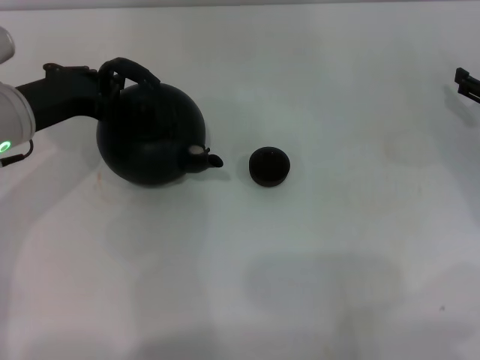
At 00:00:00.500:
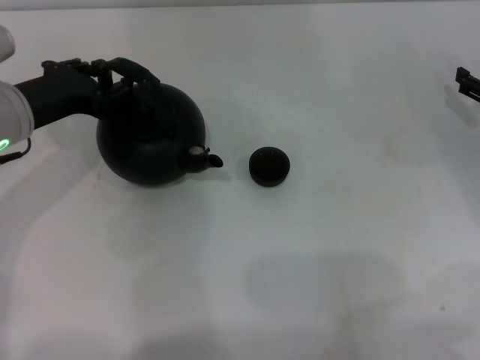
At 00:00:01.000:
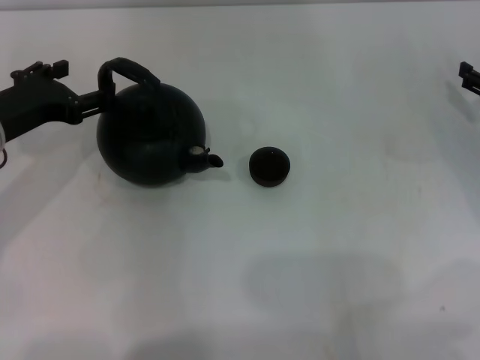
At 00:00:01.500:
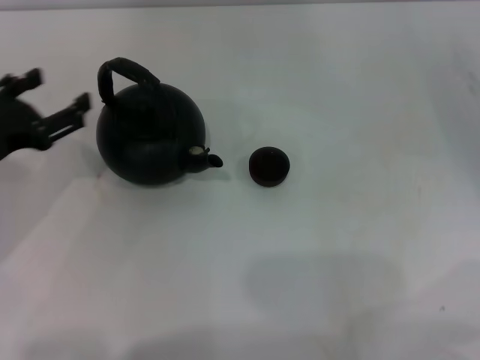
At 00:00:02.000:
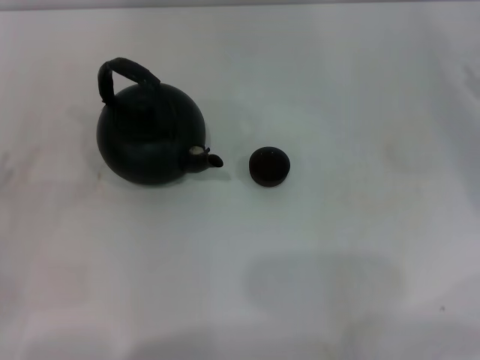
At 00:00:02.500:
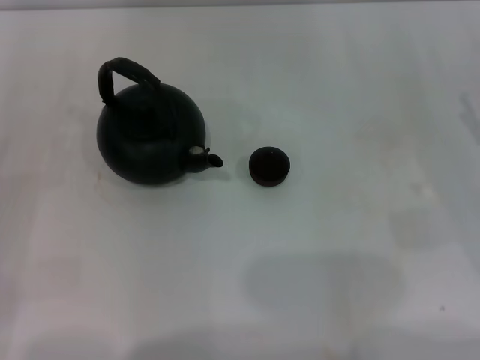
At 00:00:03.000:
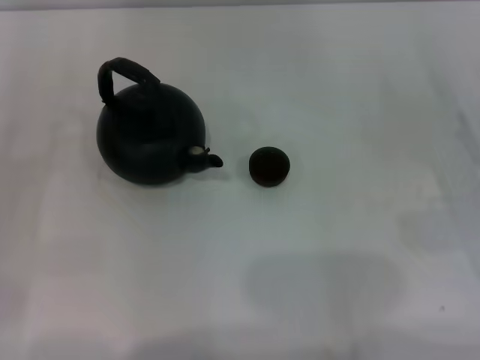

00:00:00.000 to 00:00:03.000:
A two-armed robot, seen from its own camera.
Task of the whole recording: Grasp the handle of the teapot with one hand and pour tea into the teacup.
00:00:00.000 to 00:00:01.500: The left gripper goes approximately 10 cm backward and to the left, and opens its fingers.
00:00:01.500 to 00:00:03.000: The left gripper is displaced to the left and downward by about 10 cm. Meanwhile the right gripper moves backward and to the left, about 10 cm.

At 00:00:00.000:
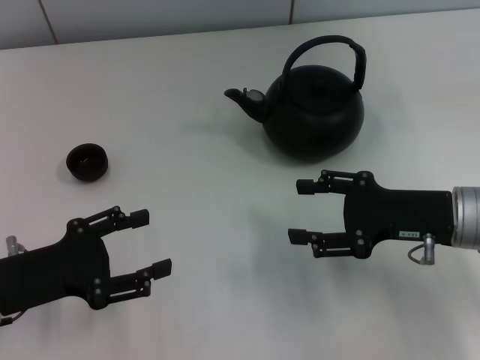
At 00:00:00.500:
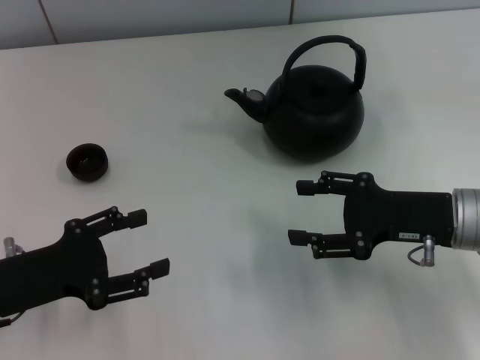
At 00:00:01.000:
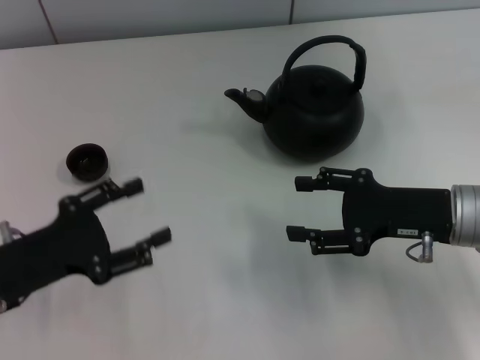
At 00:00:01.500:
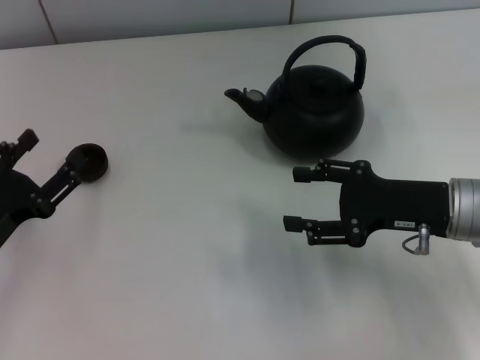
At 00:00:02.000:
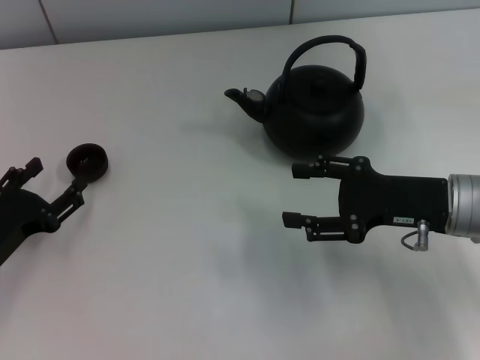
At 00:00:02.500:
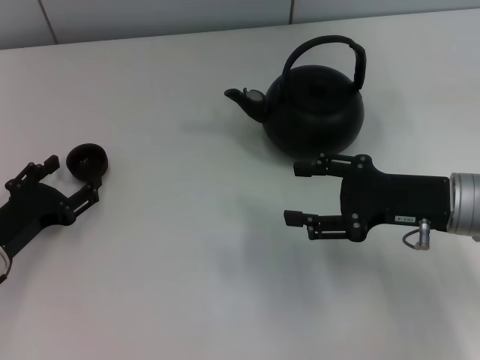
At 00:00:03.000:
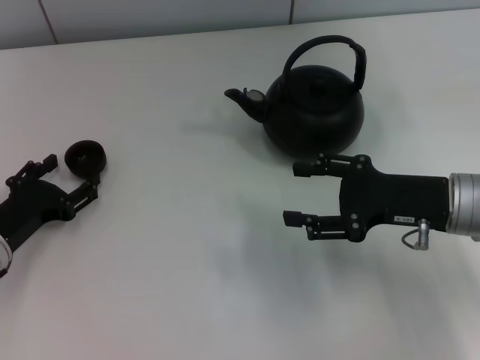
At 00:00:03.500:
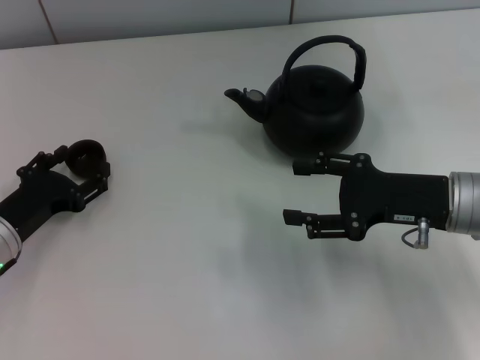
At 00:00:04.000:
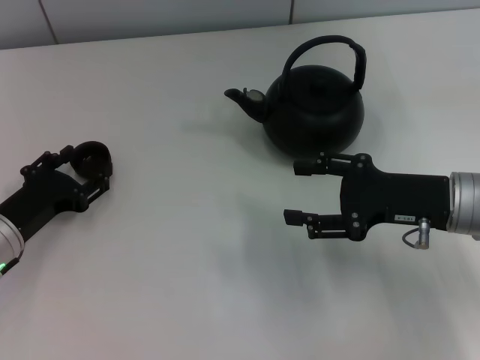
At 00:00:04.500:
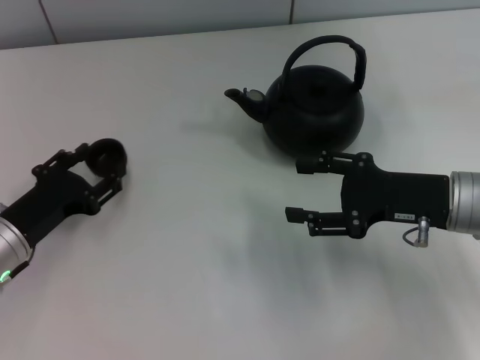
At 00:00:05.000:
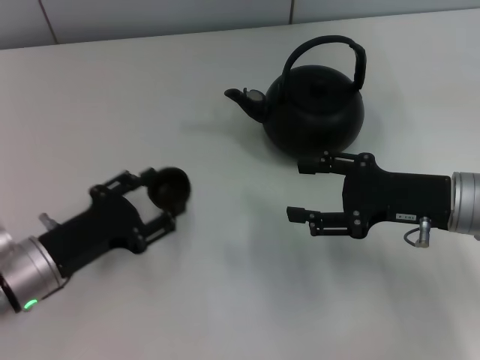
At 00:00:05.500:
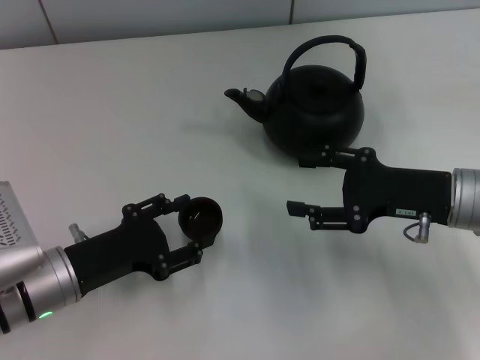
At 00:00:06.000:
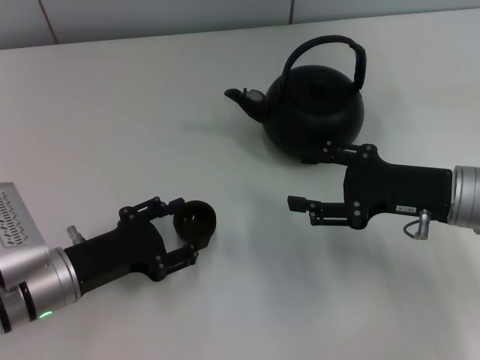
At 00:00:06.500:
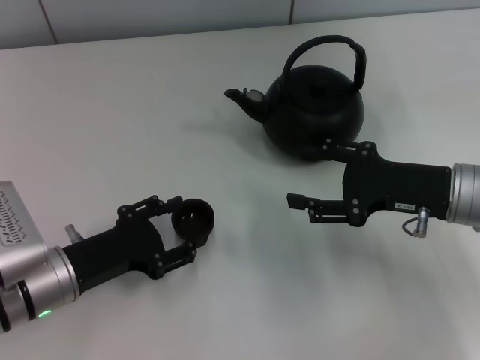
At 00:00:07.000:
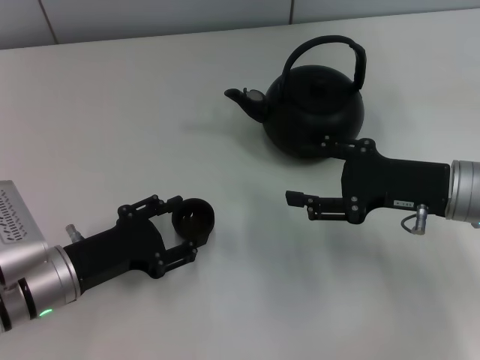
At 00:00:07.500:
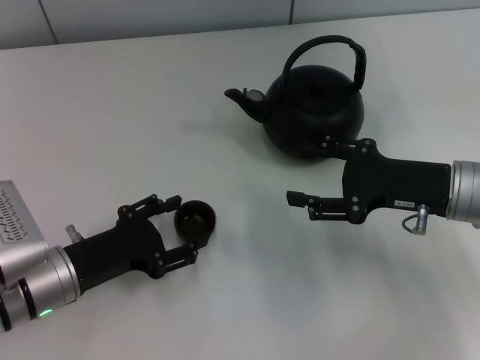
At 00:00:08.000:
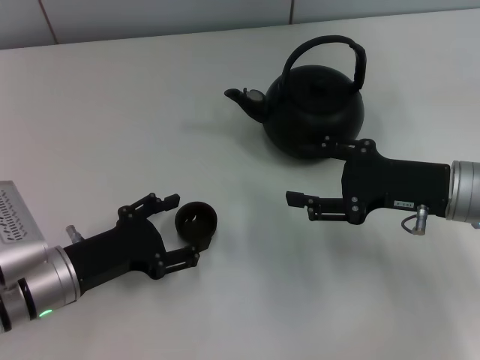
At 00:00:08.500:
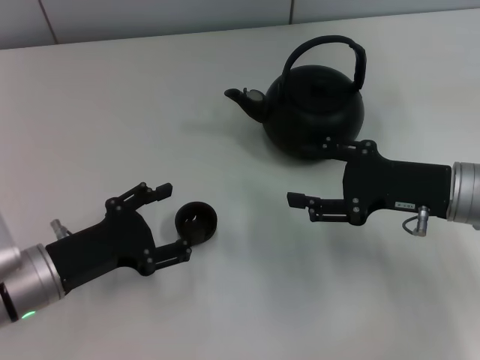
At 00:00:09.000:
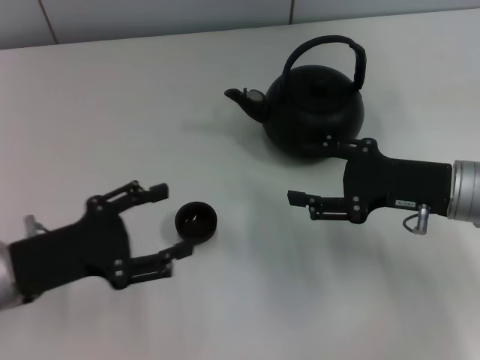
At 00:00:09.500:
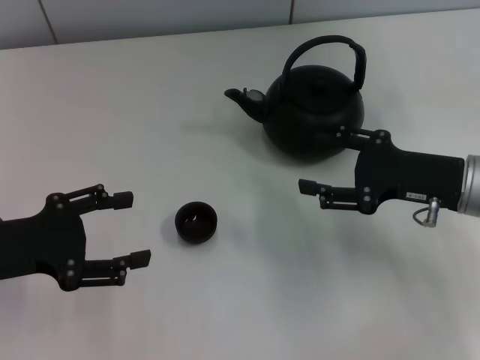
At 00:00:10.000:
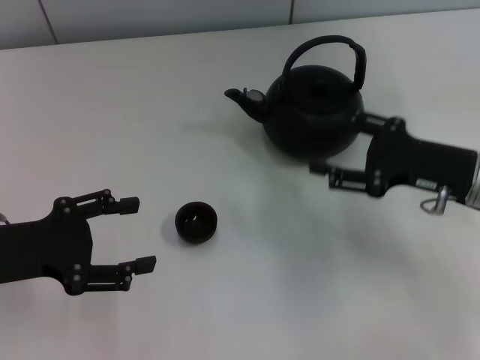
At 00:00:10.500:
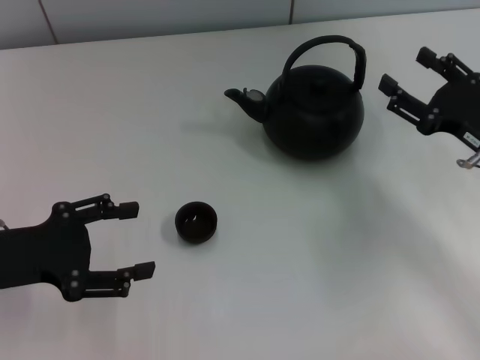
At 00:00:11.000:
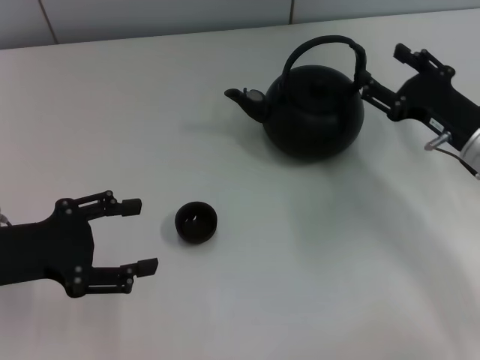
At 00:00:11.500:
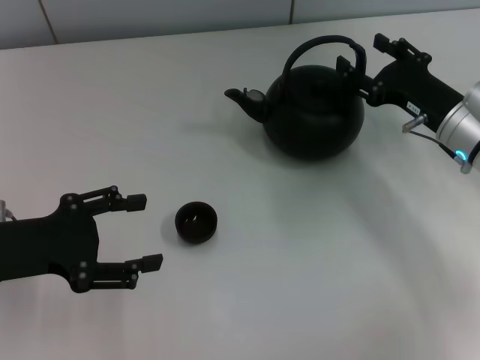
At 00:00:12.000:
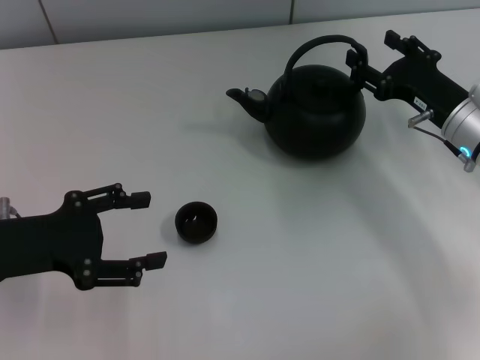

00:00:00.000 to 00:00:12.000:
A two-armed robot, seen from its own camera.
Task of the whole recording: Grasp the handle of the teapot with one hand and pour tea into the teacup.
Step, 00:00:00.000 to 00:00:04.500: Pick up the teacup with the left gripper.
Step, 00:00:05.000 to 00:00:08.500: Place the teacup in the center of view with the left gripper.
00:00:00.000 to 00:00:02.000: The left gripper is displaced downward by roughly 5 cm.
00:00:02.000 to 00:00:04.000: The grippers make only small movements.
00:00:04.000 to 00:00:06.000: The left gripper is displaced to the right by about 5 cm.
00:00:06.000 to 00:00:08.000: The left gripper opens up.
00:00:08.000 to 00:00:10.000: The left gripper goes approximately 10 cm upward and to the left.
00:00:10.000 to 00:00:12.000: The right gripper is displaced forward by about 5 cm.

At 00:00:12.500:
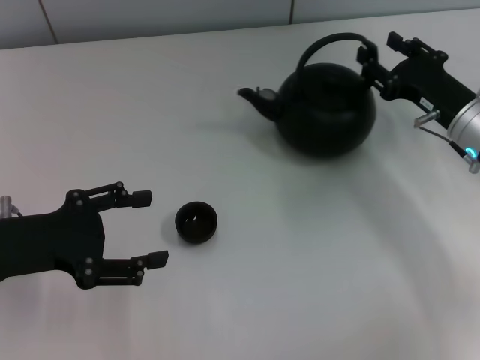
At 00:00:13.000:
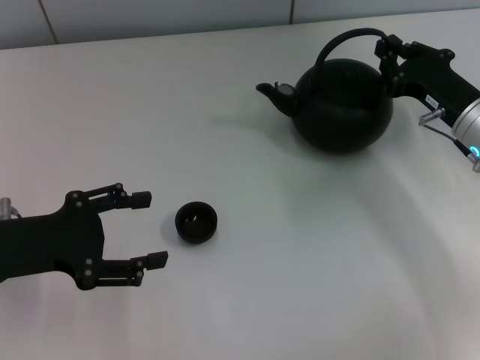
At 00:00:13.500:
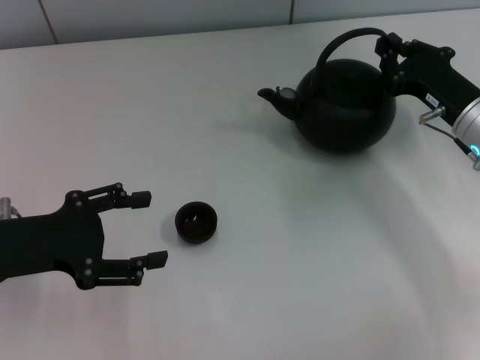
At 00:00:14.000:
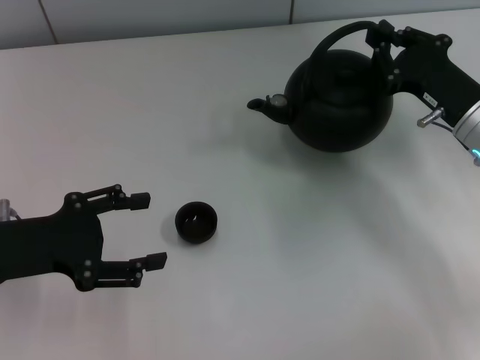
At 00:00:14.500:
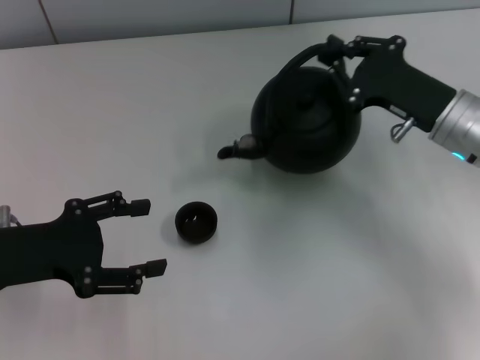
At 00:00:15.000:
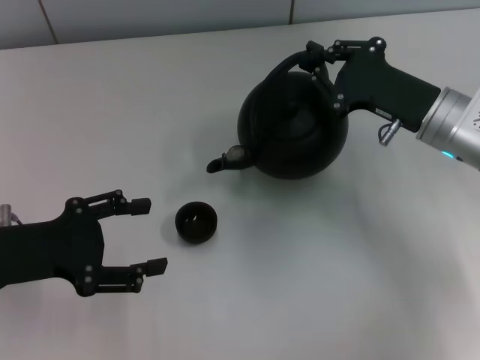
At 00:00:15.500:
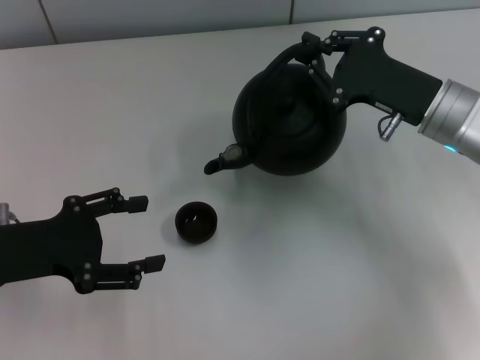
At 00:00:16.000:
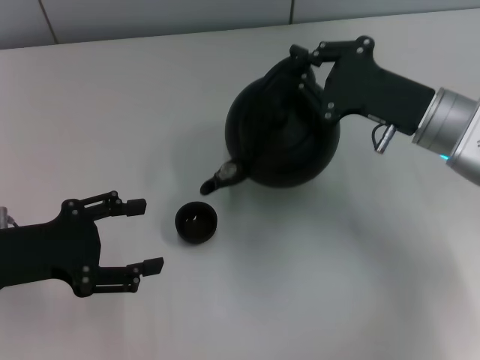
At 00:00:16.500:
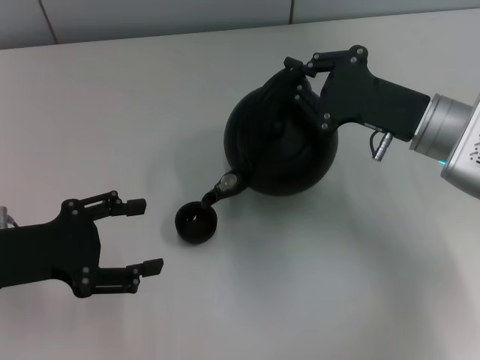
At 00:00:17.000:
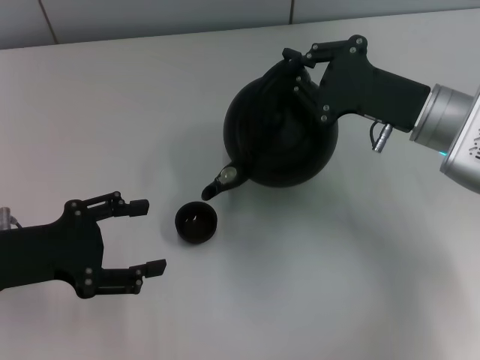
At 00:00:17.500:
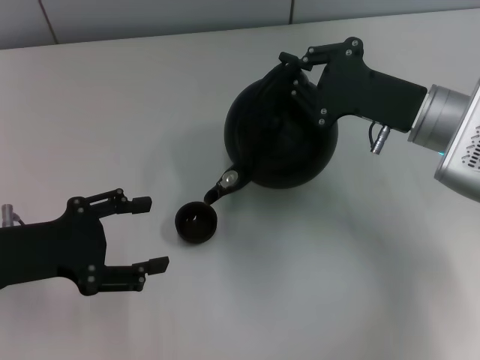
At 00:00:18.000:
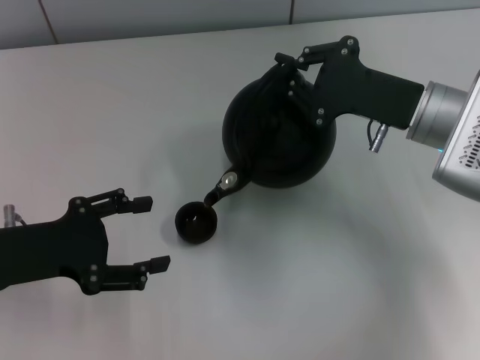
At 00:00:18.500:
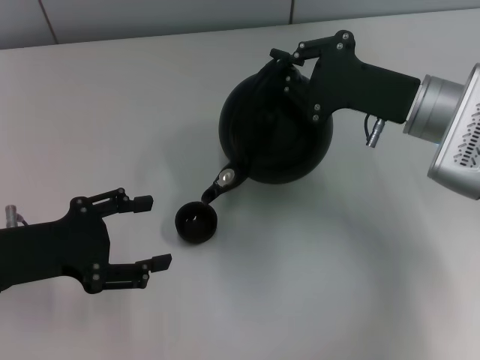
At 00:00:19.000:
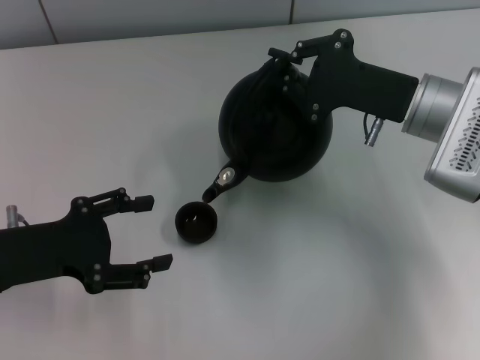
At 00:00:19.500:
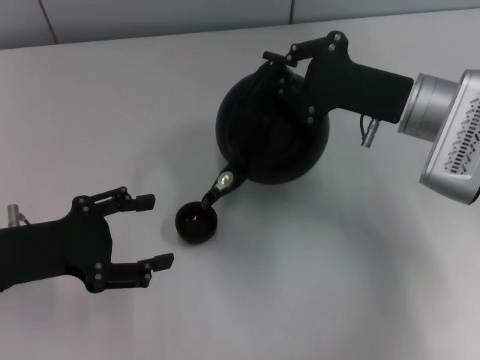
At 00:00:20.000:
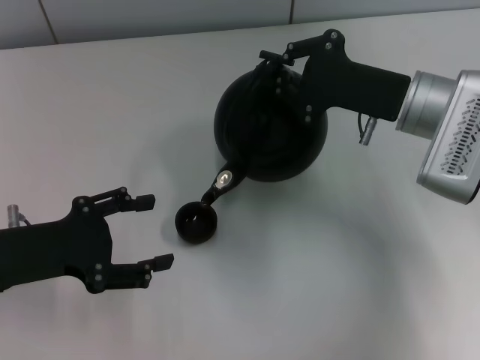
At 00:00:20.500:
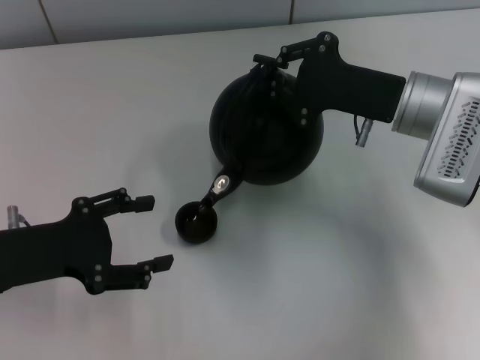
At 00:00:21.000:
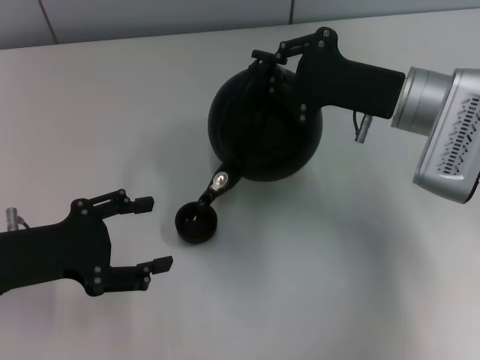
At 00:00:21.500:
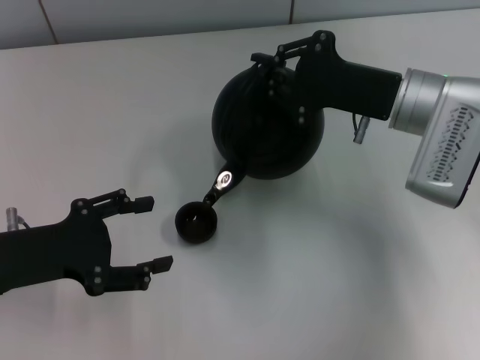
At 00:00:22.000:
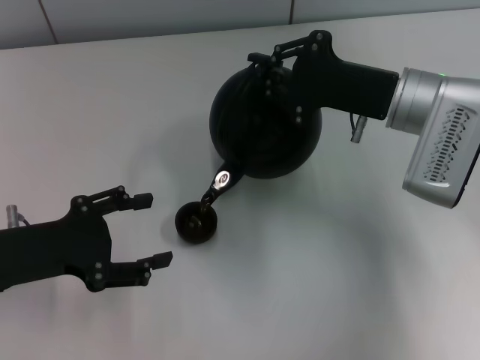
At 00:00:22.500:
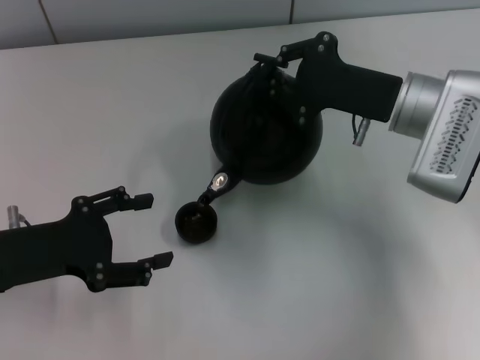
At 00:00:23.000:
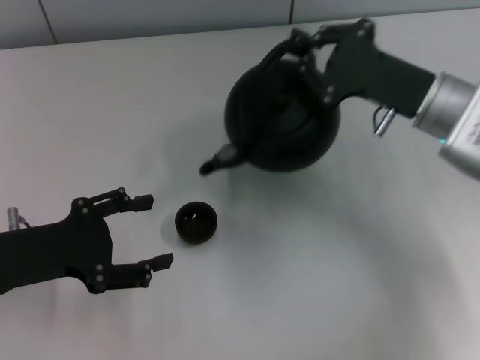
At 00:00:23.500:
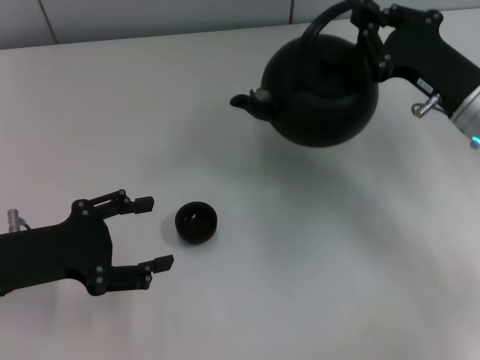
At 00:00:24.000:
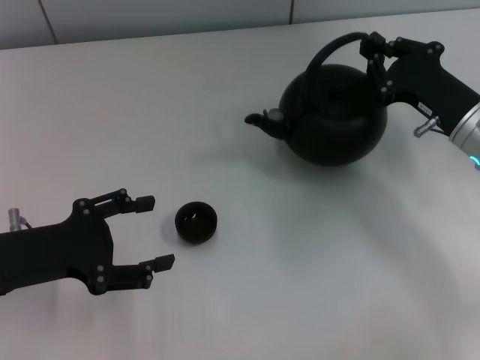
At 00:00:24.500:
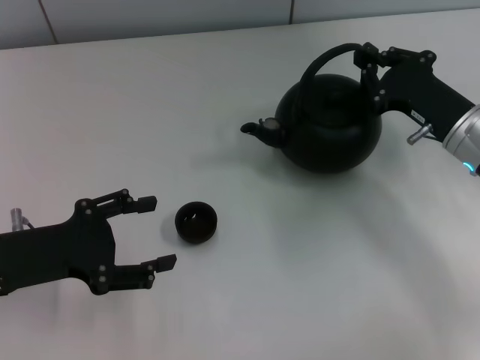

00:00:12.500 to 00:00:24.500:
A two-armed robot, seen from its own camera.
Task of the whole recording: Grasp the handle of the teapot with one hand and pour tea into the teacup.
Step, 00:00:12.500 to 00:00:14.500: Pick up the teapot with the right gripper.
00:00:12.500 to 00:00:14.500: The right gripper closes up.
00:00:14.500 to 00:00:16.500: The grippers make only small movements.
00:00:16.500 to 00:00:20.500: There are only small adjustments of the grippers.
00:00:20.500 to 00:00:22.500: The grippers move only a little.
00:00:22.500 to 00:00:24.500: The right gripper is displaced to the right and downward by some 10 cm.
